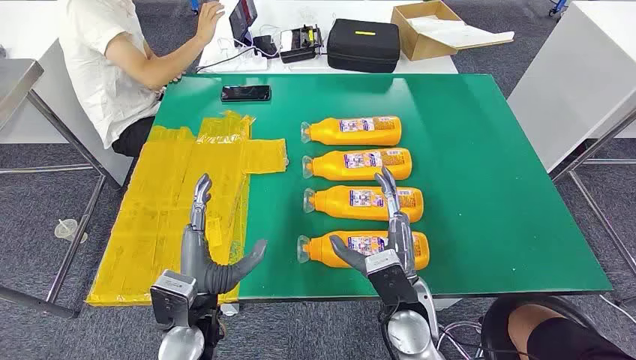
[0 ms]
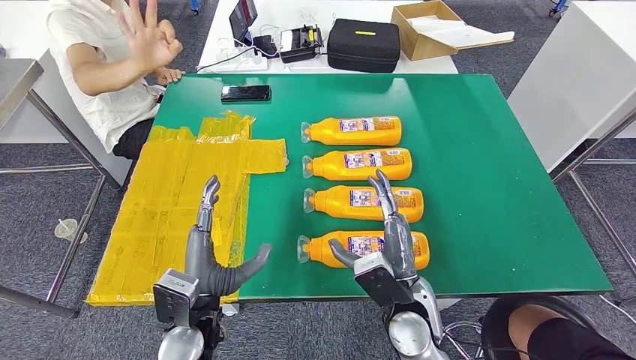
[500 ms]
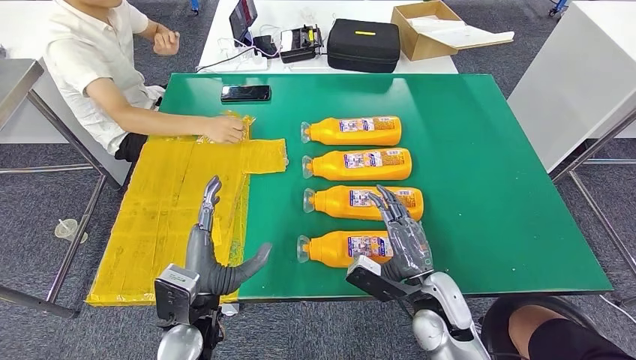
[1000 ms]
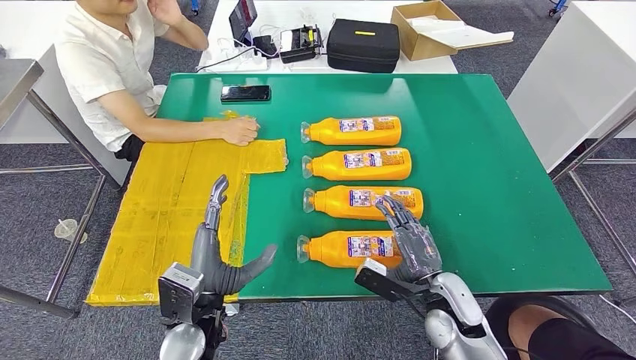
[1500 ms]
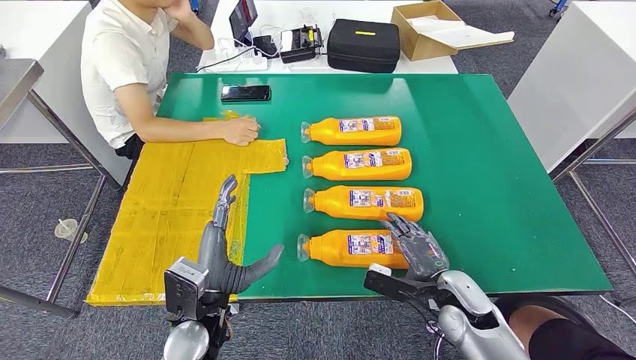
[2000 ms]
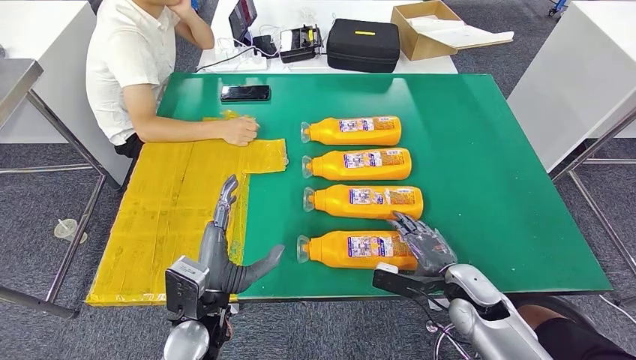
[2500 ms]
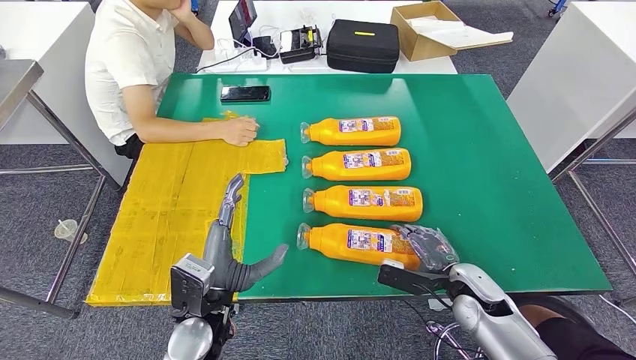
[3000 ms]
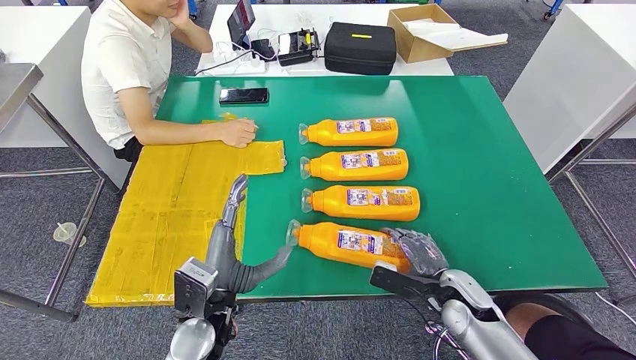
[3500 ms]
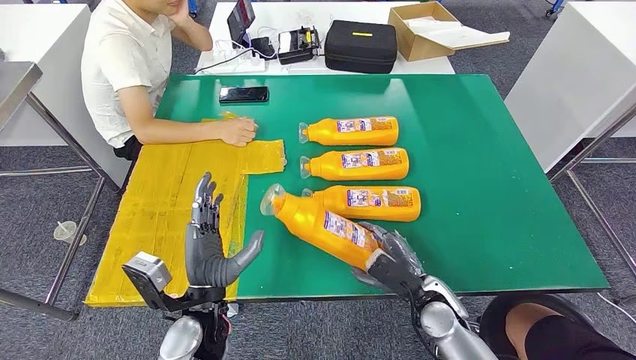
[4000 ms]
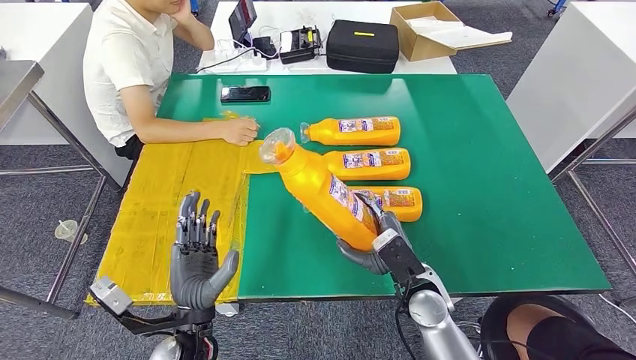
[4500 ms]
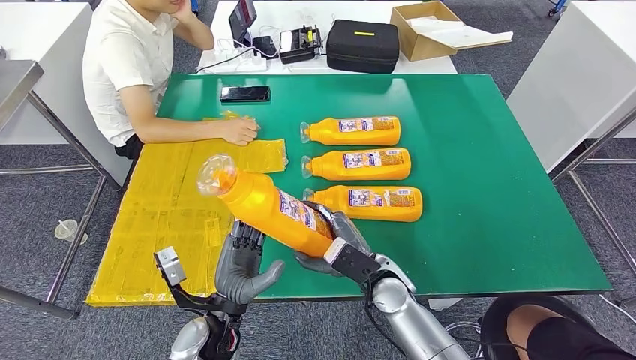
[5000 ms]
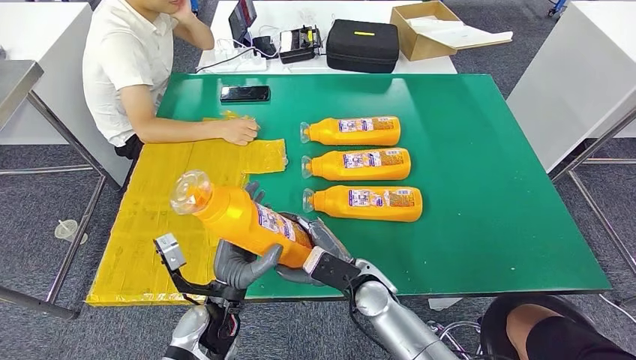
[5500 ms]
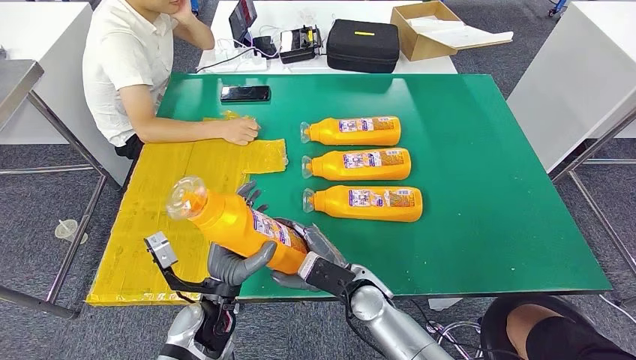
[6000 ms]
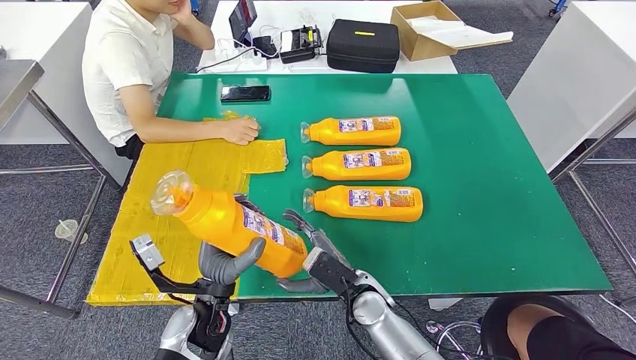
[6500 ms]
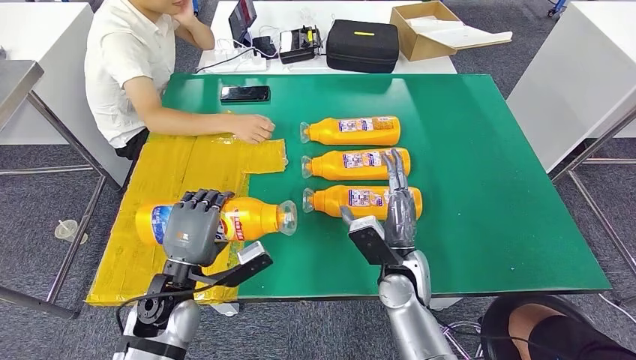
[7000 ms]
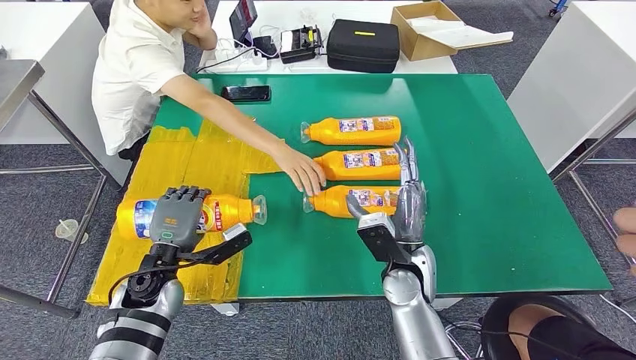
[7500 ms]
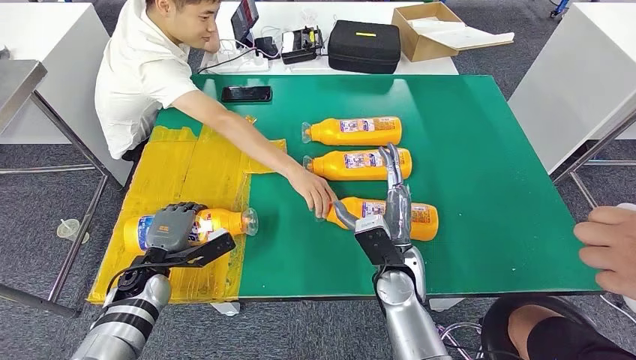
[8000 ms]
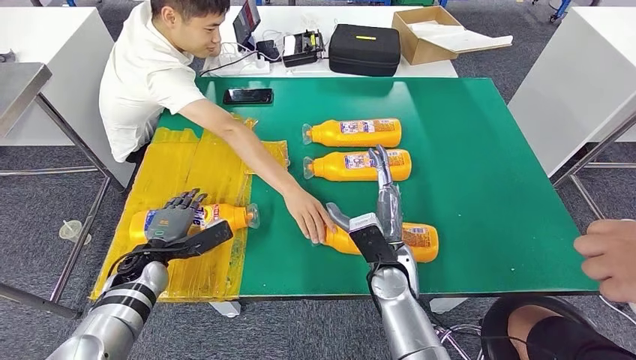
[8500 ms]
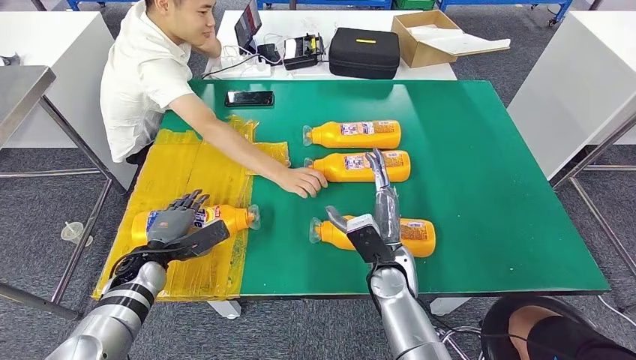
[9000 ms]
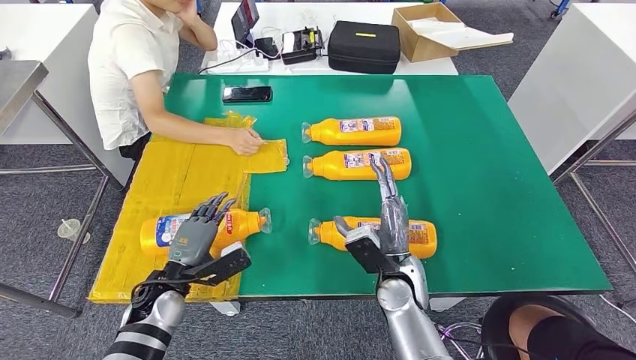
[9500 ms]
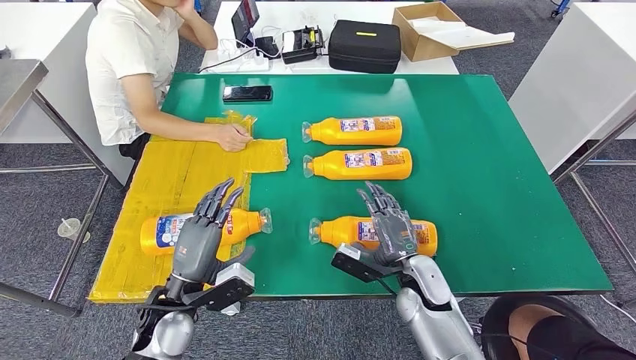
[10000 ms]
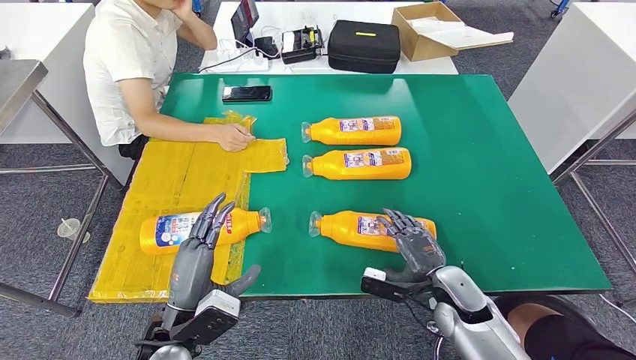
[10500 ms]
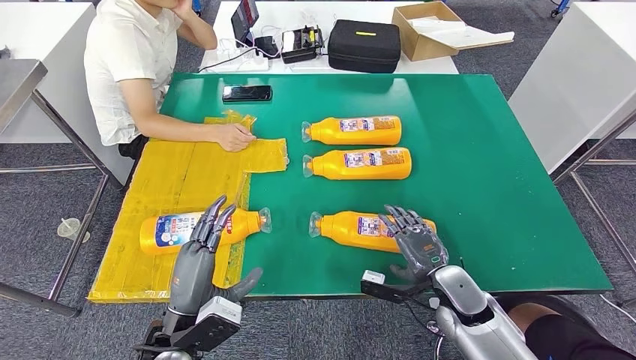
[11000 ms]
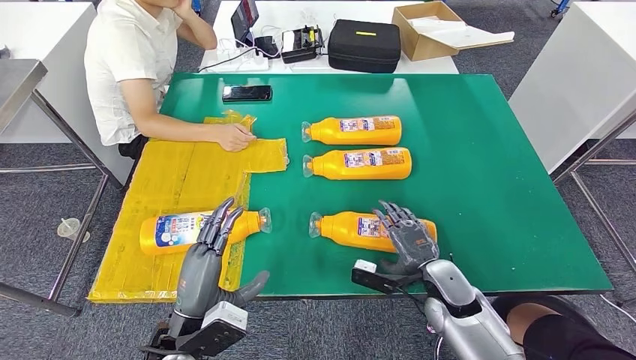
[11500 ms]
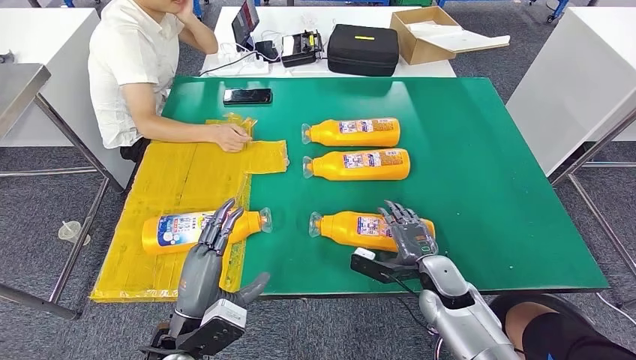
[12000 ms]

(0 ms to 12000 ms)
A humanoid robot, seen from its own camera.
Step, 0 ms - 6000 ms: Take the fast-moving consumer goods bottle from the table.
Step, 6500 ms - 9000 ms: Flip the fast-moving consumer goods bottle to the front side.
4000 ms - 6000 ms: The right hand moves to the left, about 15 cm.

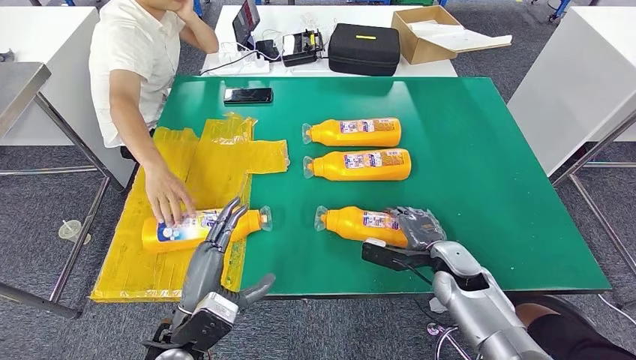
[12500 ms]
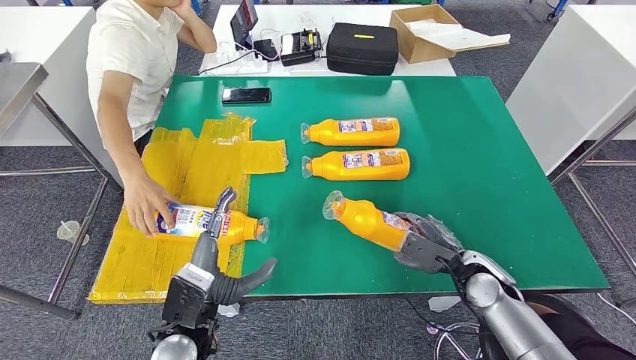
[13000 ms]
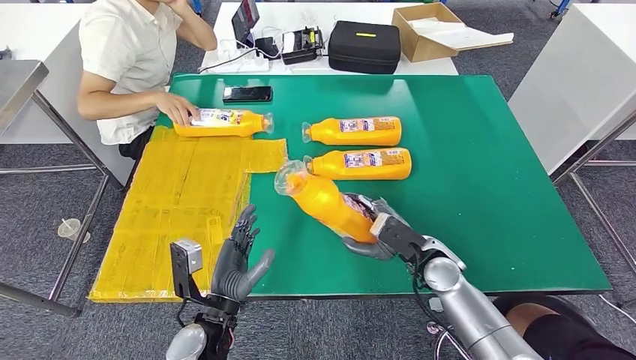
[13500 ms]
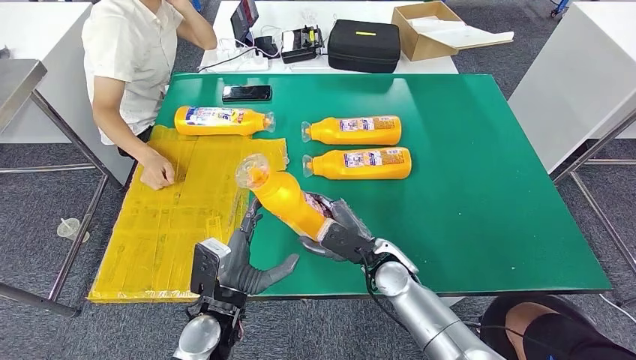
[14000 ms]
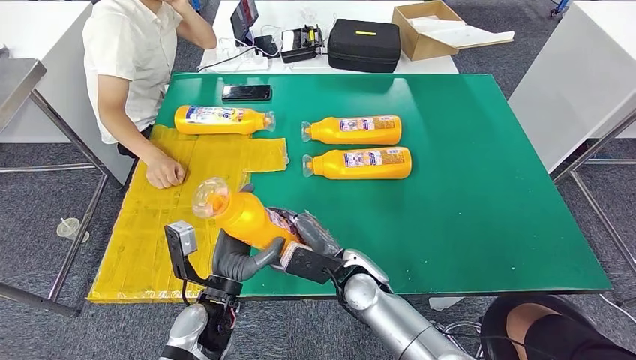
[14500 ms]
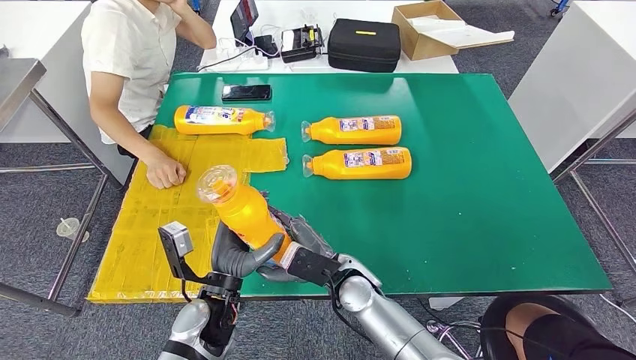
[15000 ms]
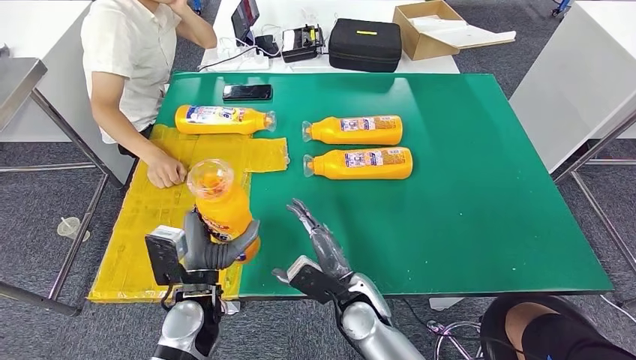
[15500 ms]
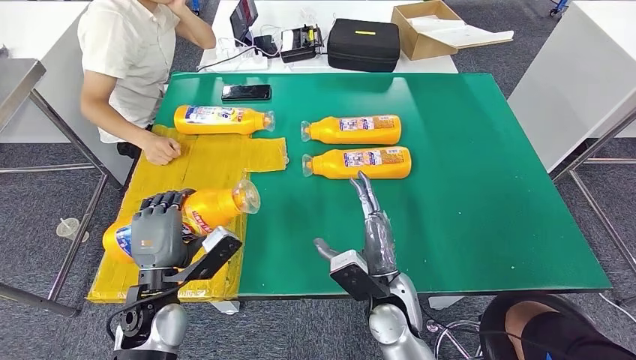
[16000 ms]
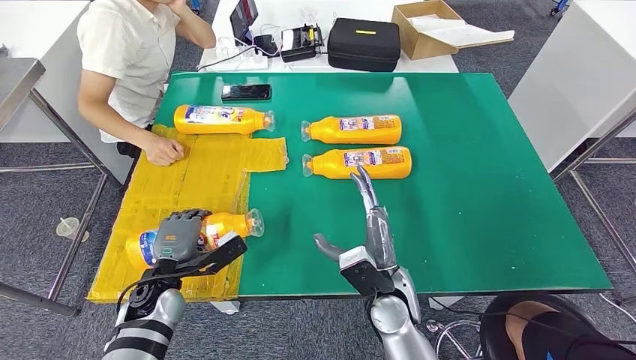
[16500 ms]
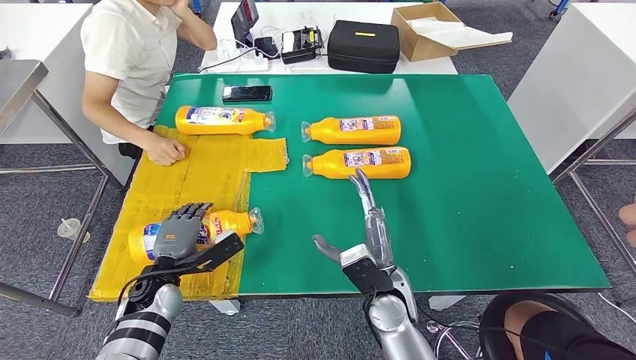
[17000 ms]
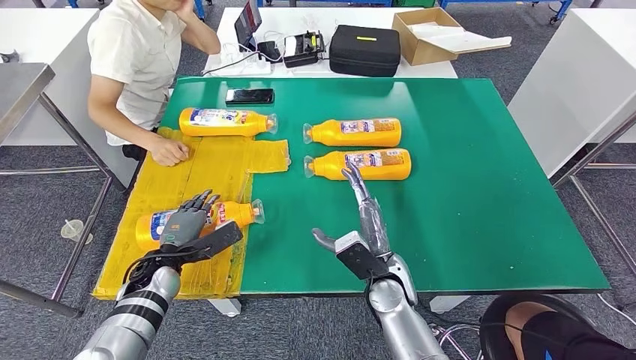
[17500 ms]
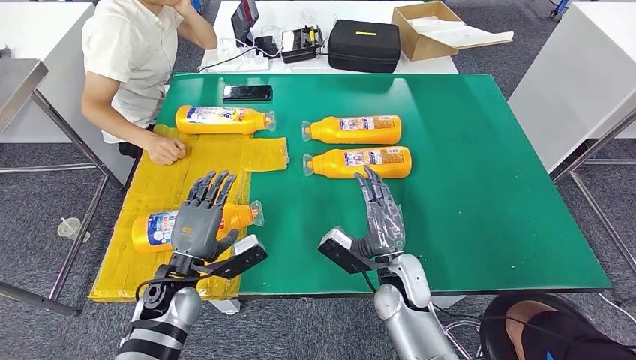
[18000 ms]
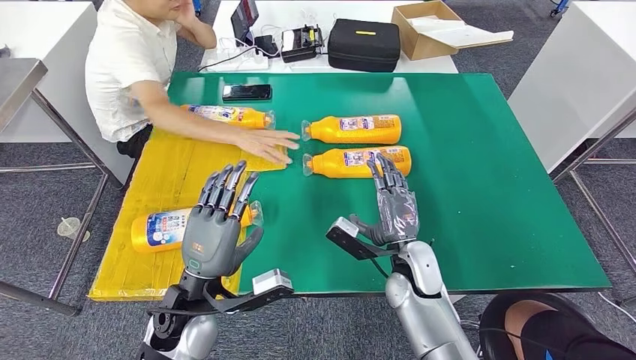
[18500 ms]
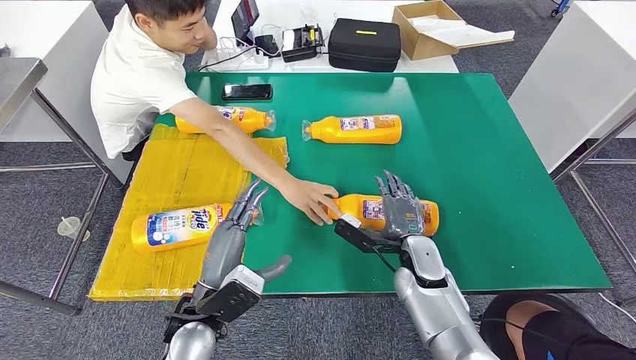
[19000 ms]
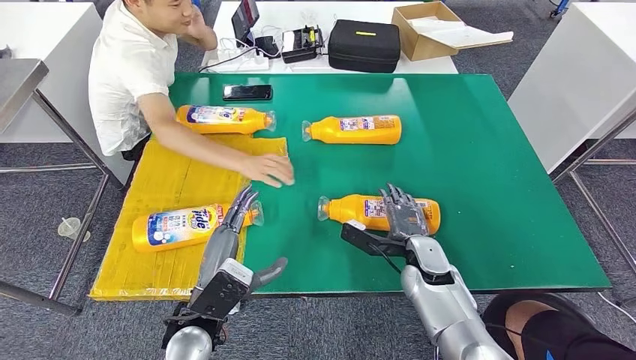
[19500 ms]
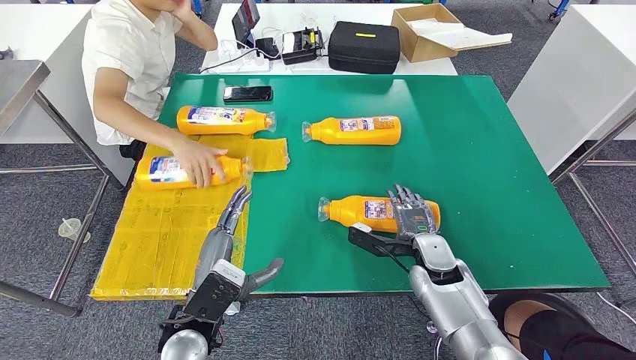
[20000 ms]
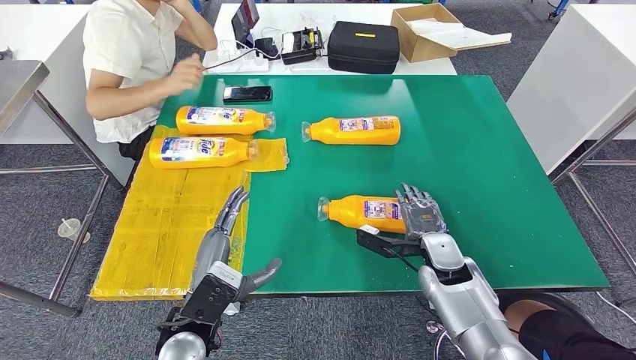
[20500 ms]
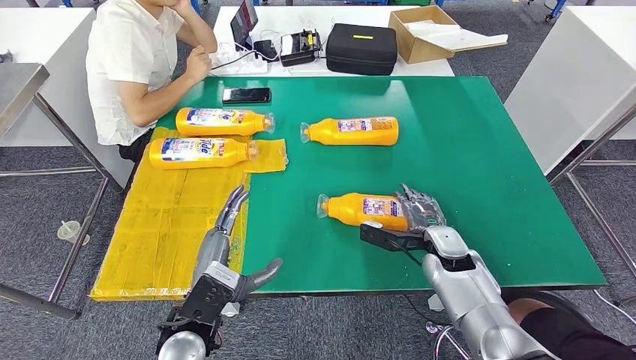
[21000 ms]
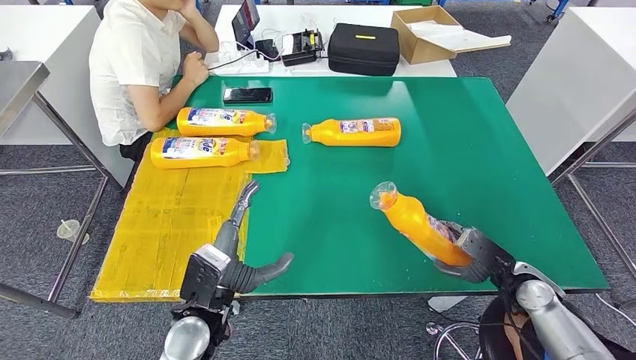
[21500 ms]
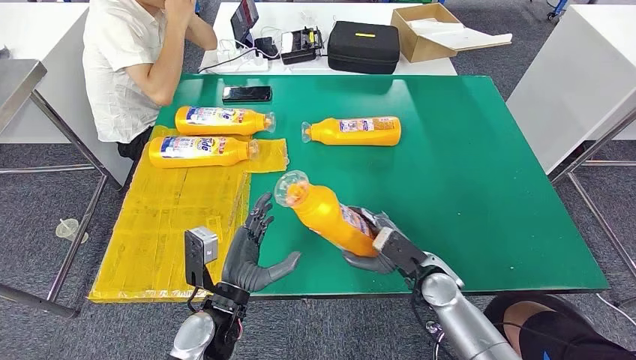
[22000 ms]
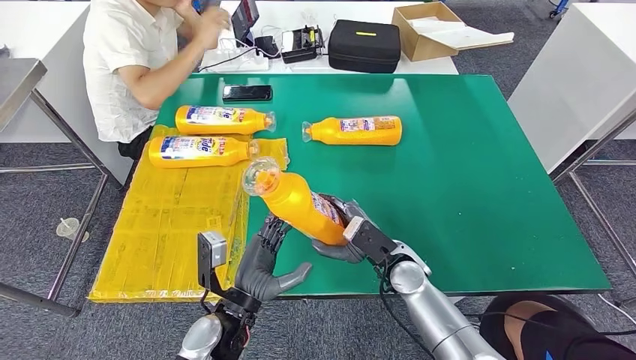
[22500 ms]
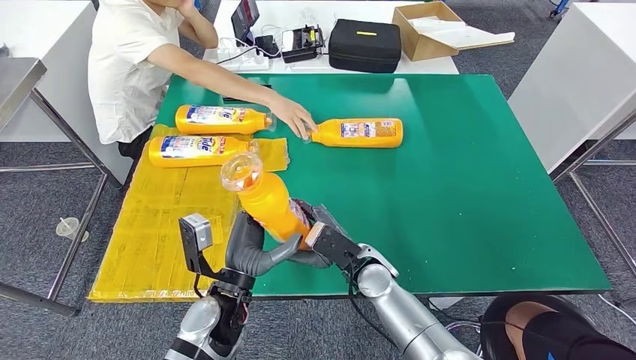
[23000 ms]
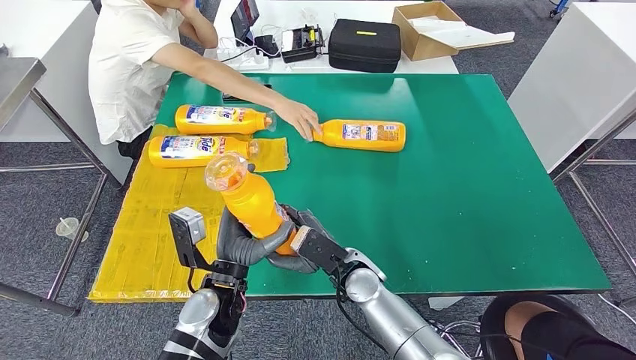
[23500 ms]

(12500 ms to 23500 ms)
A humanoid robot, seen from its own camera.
Step, 14500 ms - 17000 ms: Flip the fast-moving consumer goods bottle to the front side.
14500 ms - 16000 ms: The left hand is displaced to the left by some 10 cm; the right hand moves approximately 5 cm.
16000 ms - 18000 ms: The right hand shifts by approximately 5 cm.
